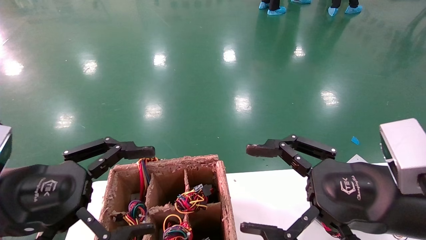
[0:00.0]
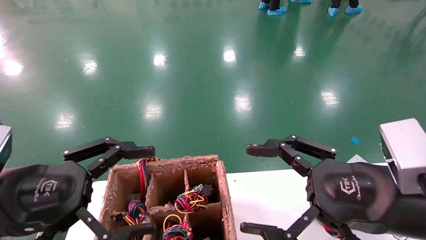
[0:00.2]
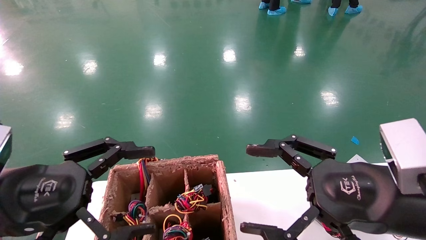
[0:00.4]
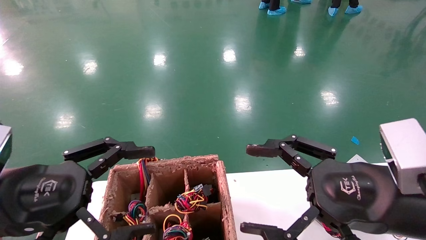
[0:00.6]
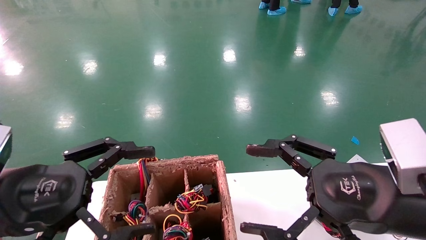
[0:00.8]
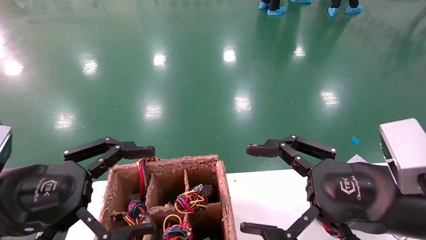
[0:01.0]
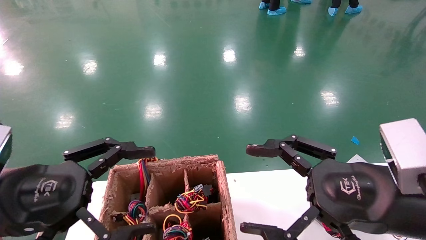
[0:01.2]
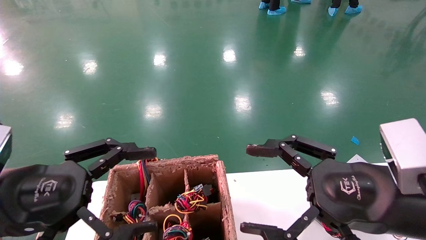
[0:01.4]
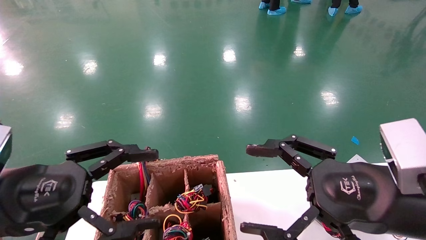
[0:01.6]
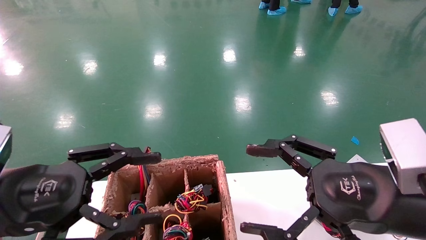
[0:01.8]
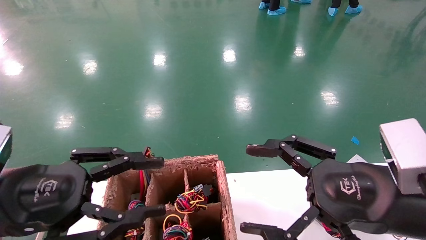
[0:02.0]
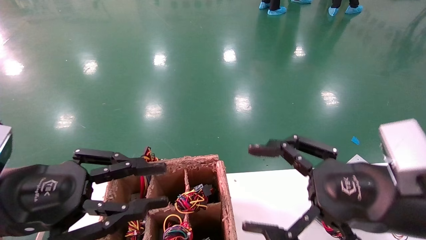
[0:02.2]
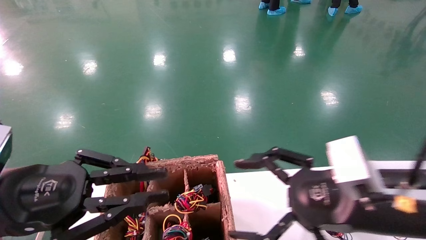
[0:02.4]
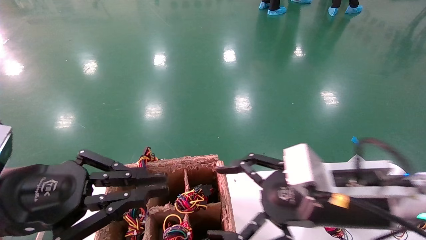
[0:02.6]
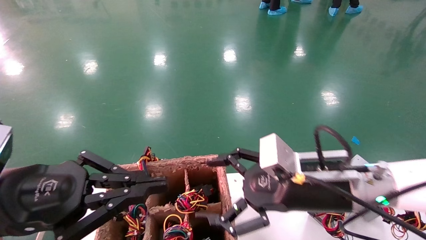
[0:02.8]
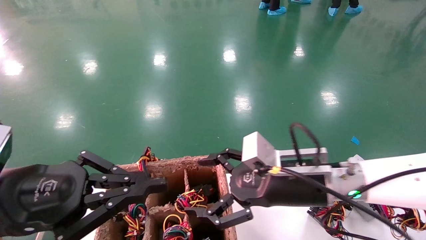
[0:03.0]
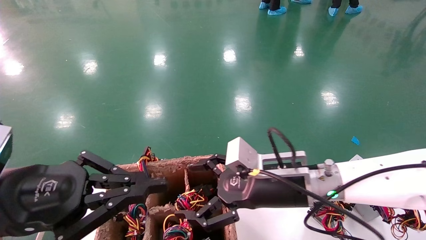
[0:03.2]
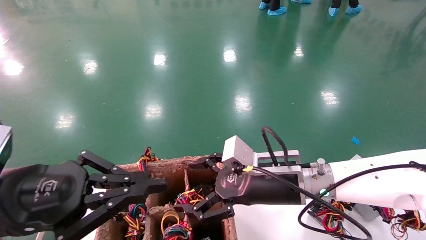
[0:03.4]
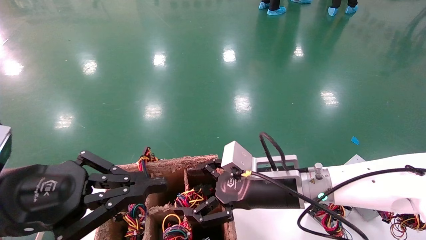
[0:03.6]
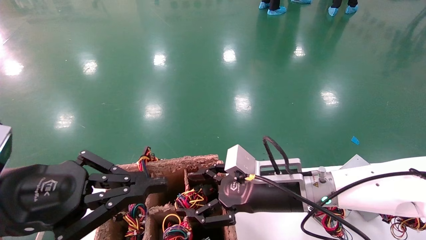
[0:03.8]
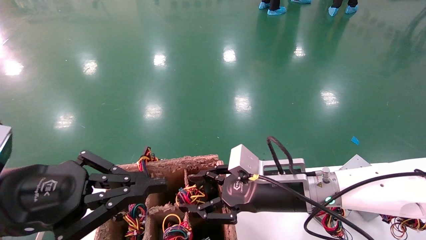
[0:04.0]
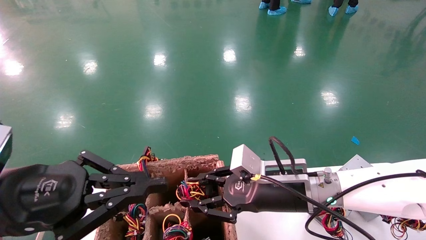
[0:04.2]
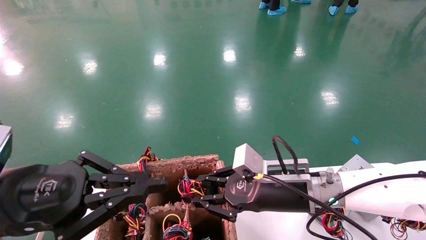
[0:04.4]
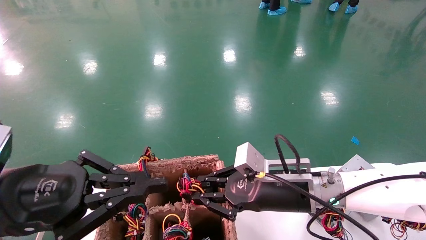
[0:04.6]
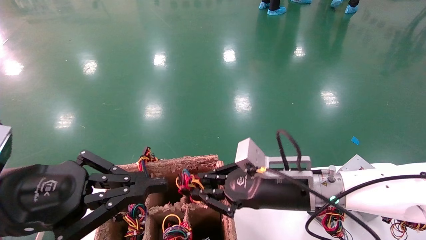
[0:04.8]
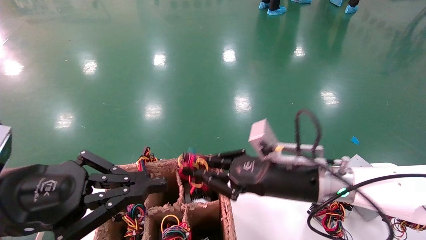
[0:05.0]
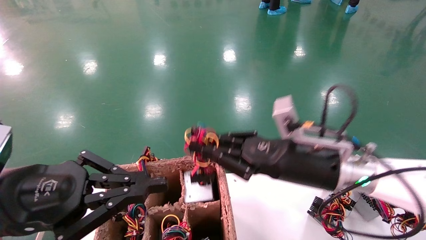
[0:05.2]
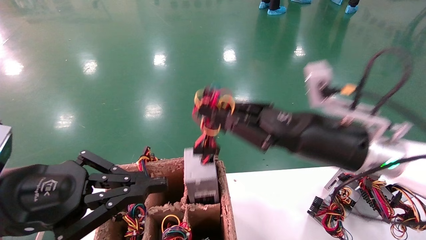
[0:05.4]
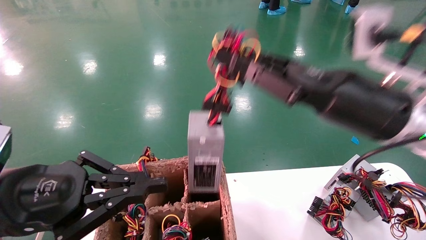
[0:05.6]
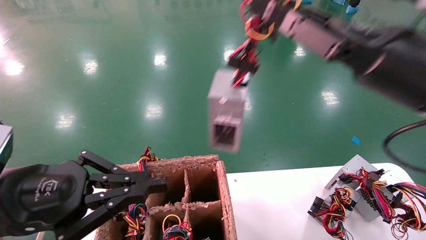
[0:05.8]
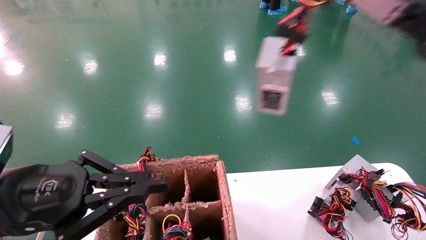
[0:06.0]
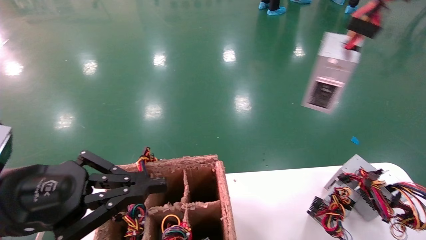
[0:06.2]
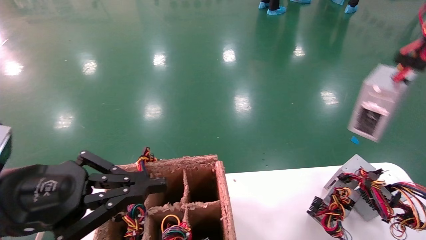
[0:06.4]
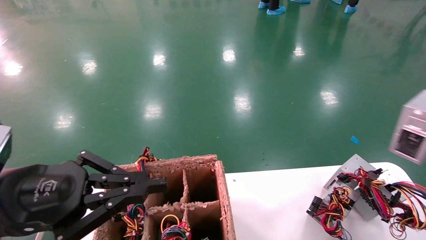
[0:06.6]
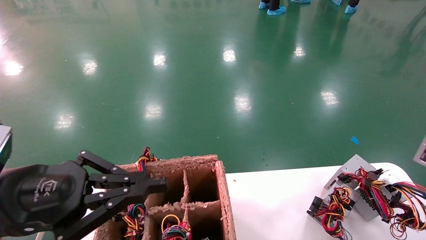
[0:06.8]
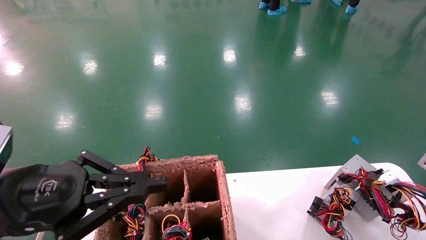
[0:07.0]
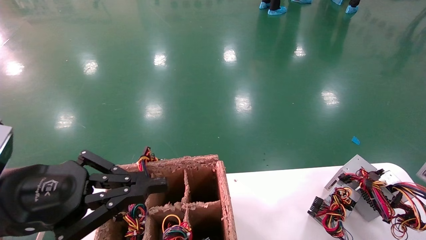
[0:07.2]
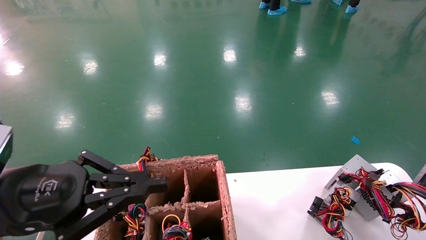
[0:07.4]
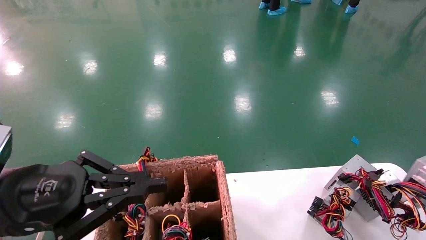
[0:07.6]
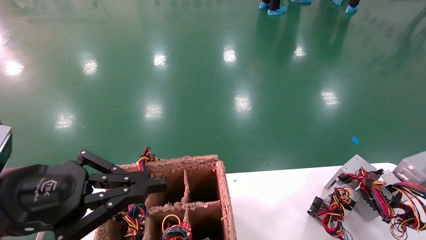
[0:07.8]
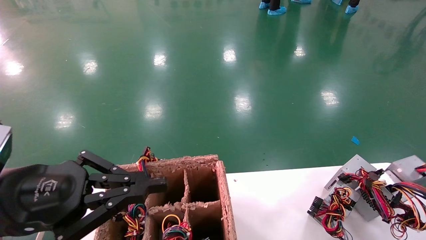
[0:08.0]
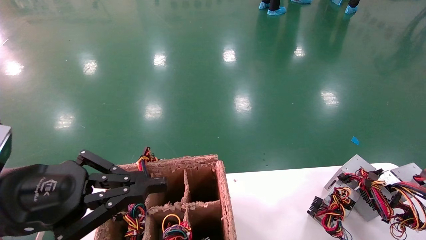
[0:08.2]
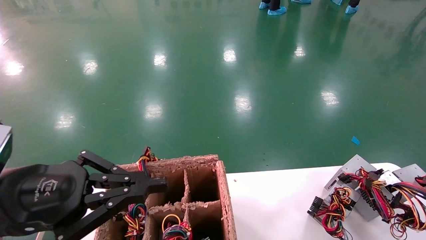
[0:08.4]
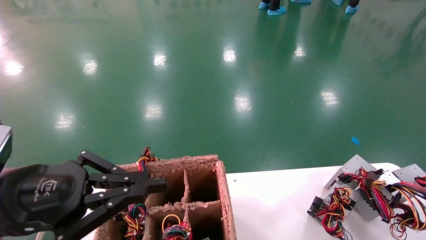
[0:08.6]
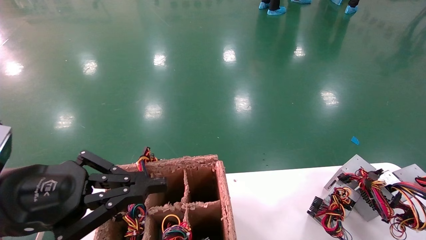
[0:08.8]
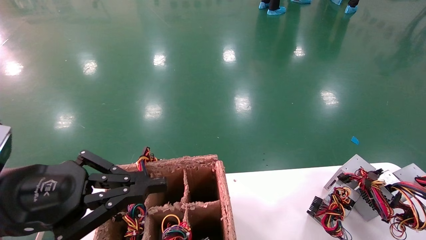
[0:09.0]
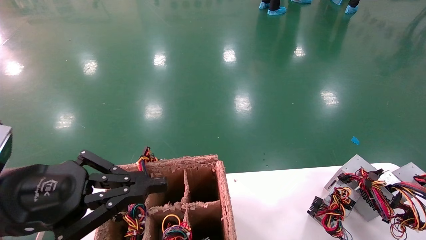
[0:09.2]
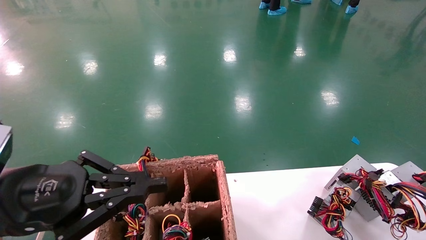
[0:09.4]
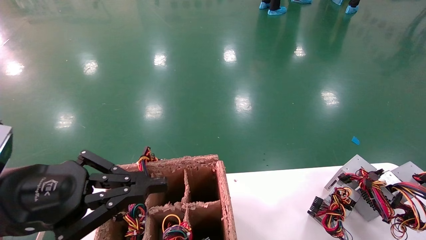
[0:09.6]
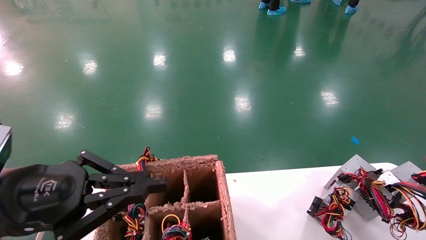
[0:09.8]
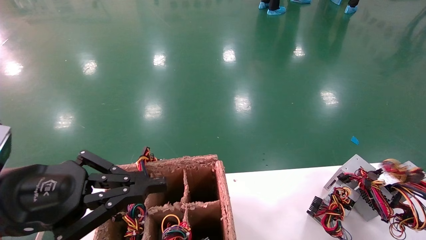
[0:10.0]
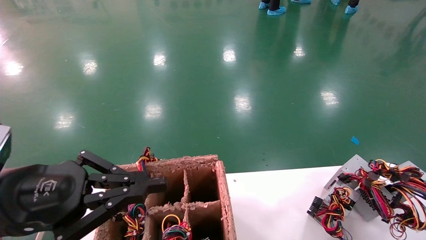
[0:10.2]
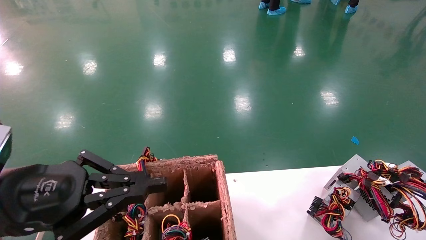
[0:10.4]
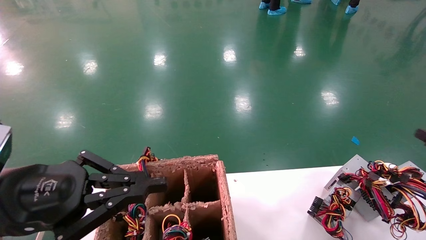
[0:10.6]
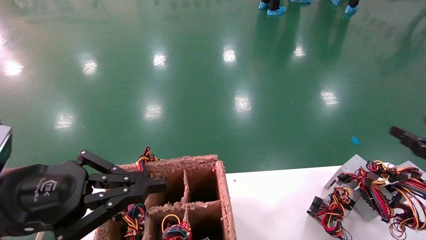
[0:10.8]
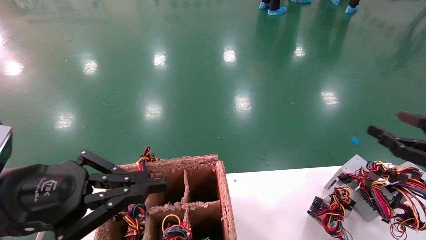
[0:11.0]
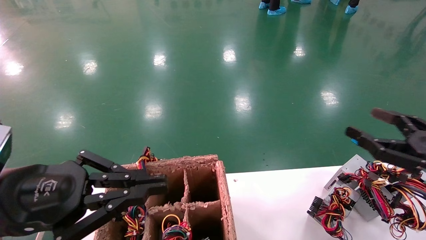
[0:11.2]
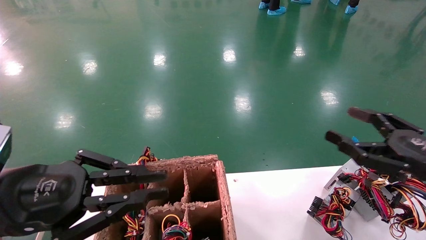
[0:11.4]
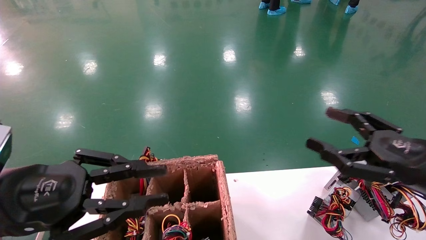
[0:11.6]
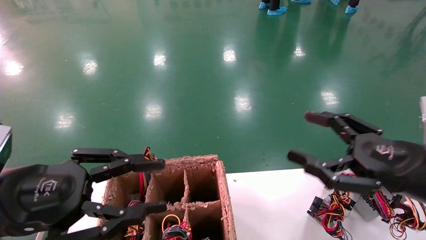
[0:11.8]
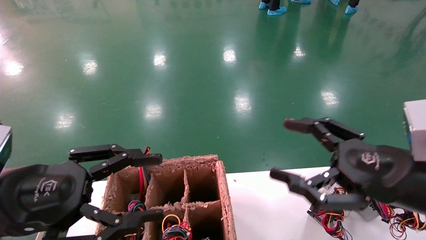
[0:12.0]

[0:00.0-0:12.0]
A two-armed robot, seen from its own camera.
Step, 0:02.6 to 0:04.8: Grab the main unit power supply from the containment box.
Step, 0:05.0 to 0:09.8: Place the main unit power supply in the designated area.
0:00.0 to 0:01.6: The two grippers keep their place.
0:01.6 to 0:03.0: The right gripper shifts some 15 cm forward and to the left. The left gripper closes up.
0:03.0 to 0:04.4: The right gripper closes its fingers.
0:04.4 to 0:06.0: The right gripper goes some 30 cm upward, to the right and backward.
0:06.0 to 0:07.6: The right gripper is displaced to the right and downward by roughly 30 cm.
0:07.6 to 0:09.0: The right gripper moves downward, roughly 5 cm.
0:09.0 to 0:10.4: The right gripper is displaced upward by roughly 5 cm, and opens its fingers.
0:10.4 to 0:12.0: The left gripper opens. The right gripper is displaced to the left by roughly 25 cm.

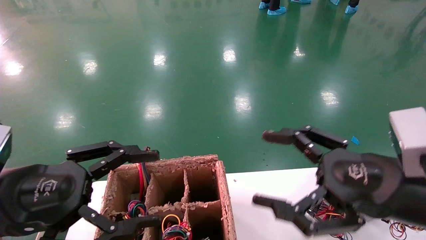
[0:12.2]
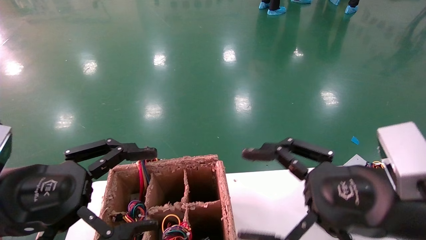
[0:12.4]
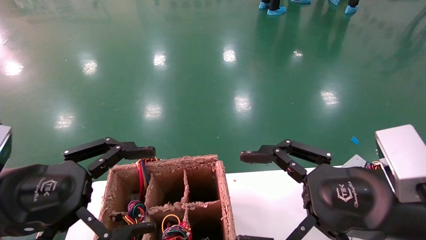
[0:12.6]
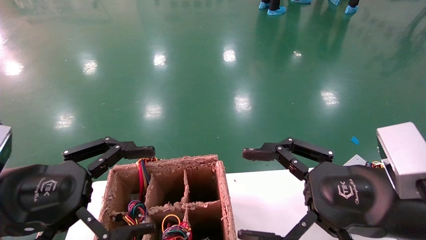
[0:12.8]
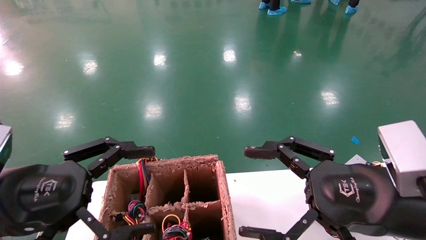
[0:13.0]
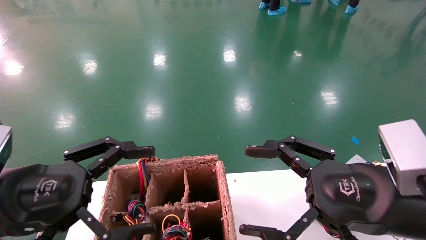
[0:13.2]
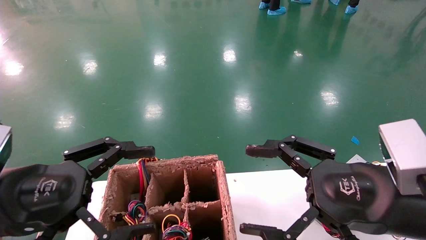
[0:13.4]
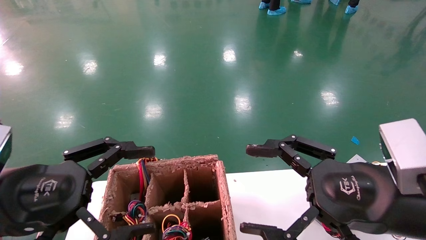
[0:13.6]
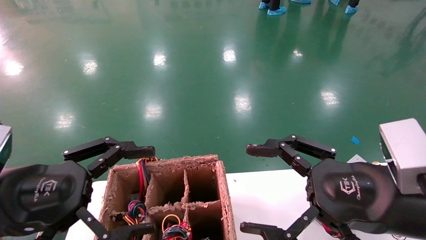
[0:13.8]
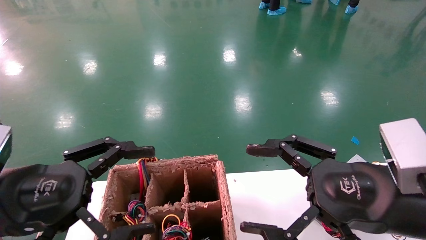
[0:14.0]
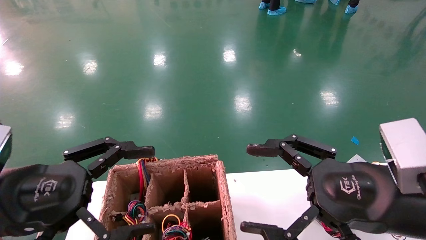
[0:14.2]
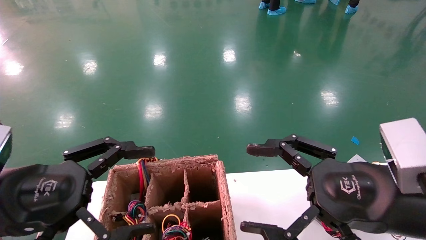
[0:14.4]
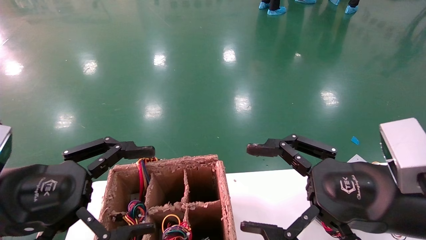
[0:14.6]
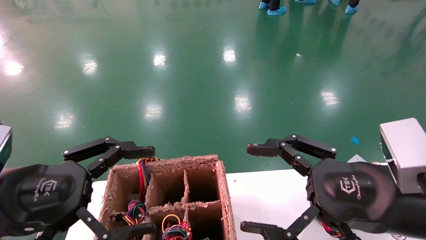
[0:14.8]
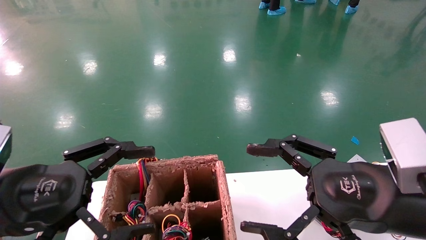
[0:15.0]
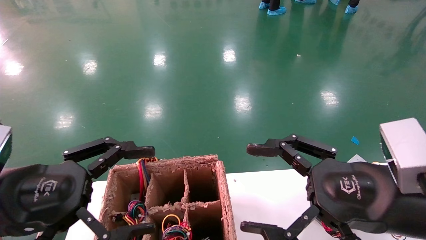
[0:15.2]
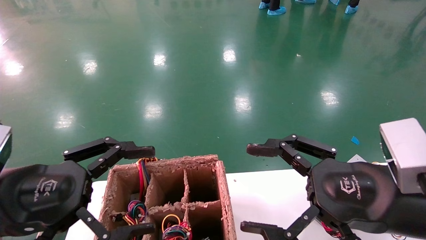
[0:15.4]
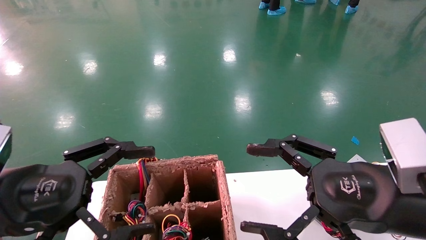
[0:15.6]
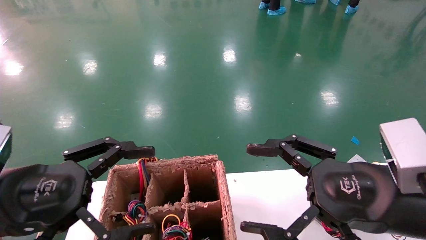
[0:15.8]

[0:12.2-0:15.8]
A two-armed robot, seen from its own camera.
0:12.2 to 0:14.0: There are only small adjustments of the grippers.
0:14.0 to 0:15.8: Both grippers stay about where they are.

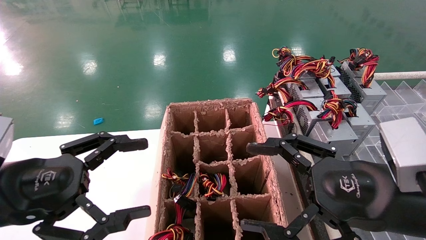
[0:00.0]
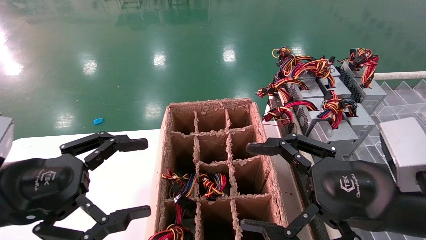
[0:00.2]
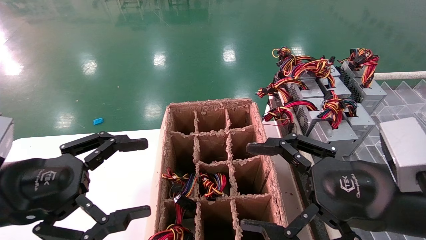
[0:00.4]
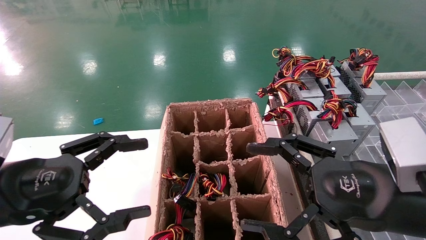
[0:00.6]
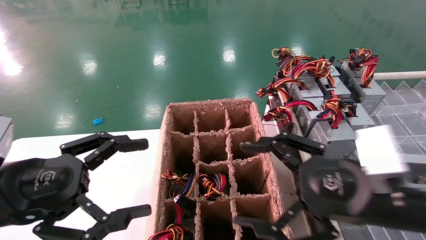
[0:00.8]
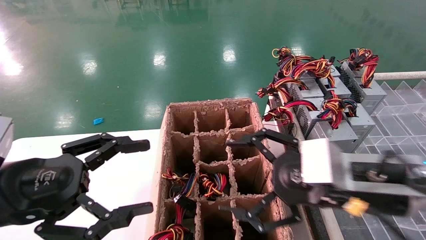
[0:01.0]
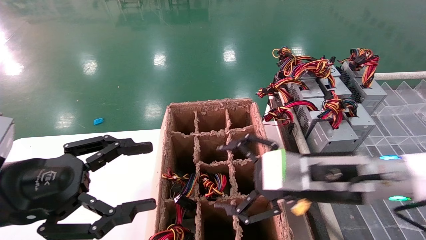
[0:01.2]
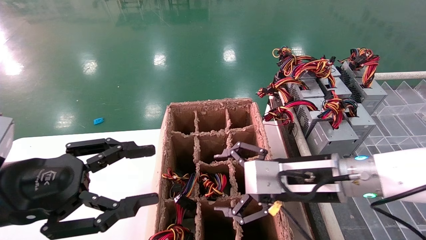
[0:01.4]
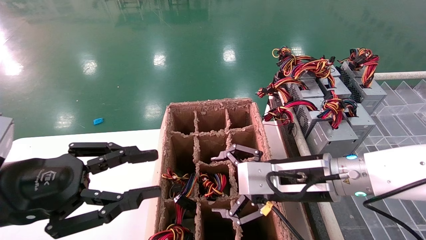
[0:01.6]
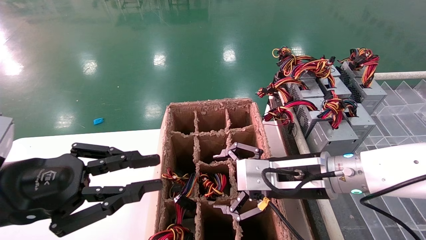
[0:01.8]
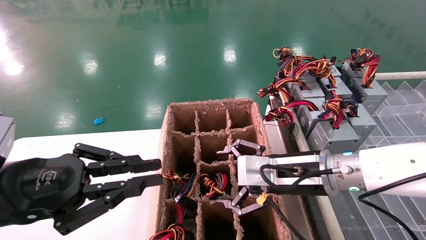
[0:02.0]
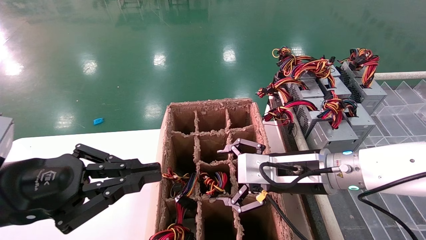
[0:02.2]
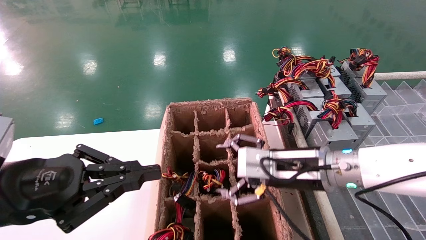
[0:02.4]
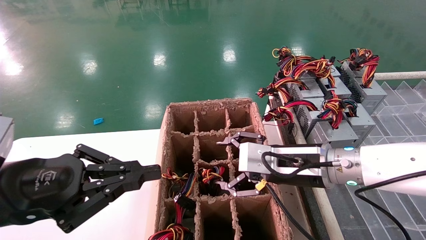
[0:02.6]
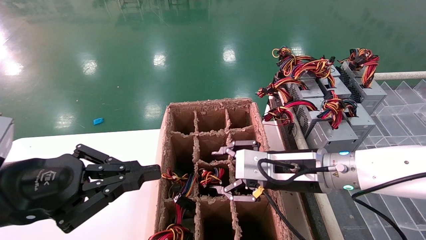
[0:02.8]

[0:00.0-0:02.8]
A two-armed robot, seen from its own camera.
0:00.0 to 0:01.4: The right gripper shifts about 10 cm forward and to the left.
0:01.4 to 0:02.8: The left gripper closes its fingers.
